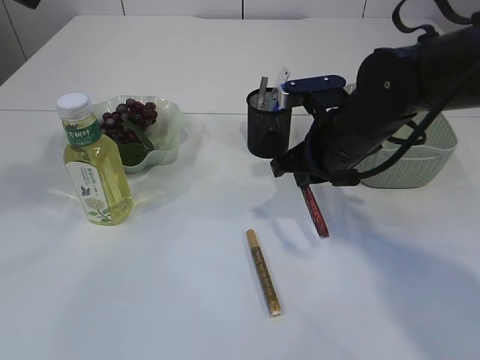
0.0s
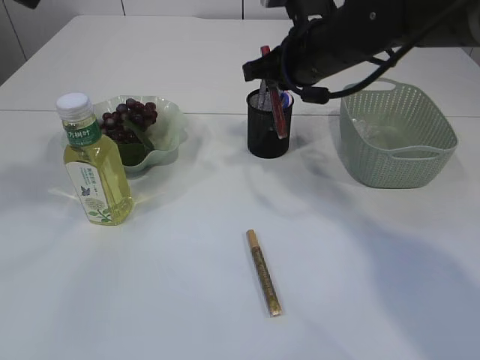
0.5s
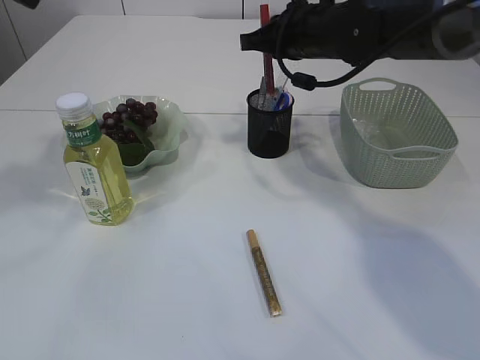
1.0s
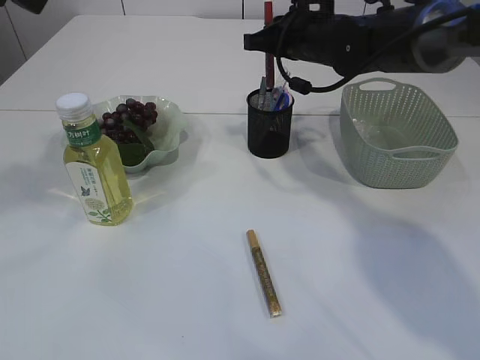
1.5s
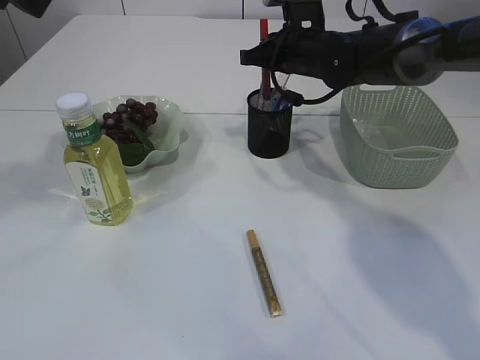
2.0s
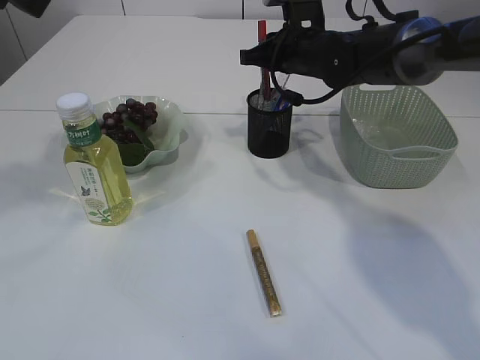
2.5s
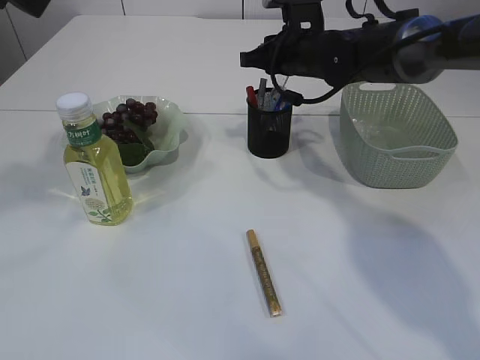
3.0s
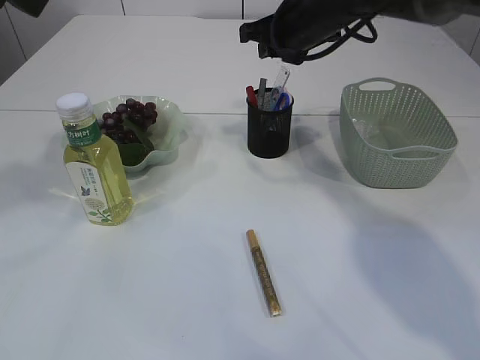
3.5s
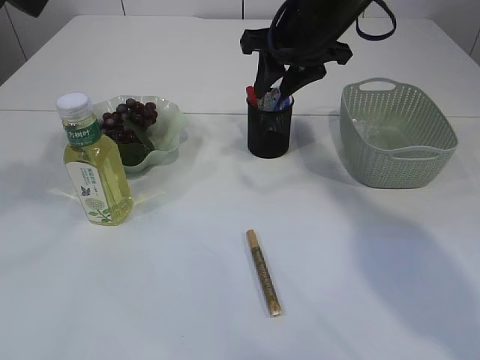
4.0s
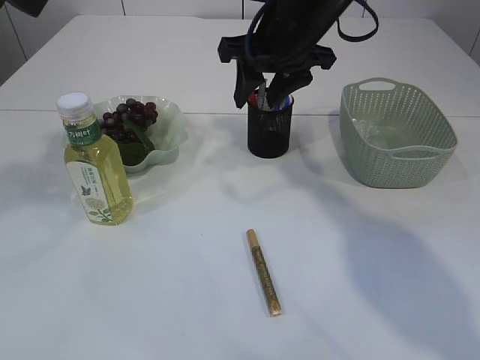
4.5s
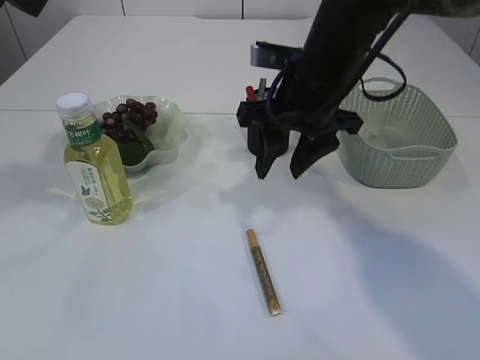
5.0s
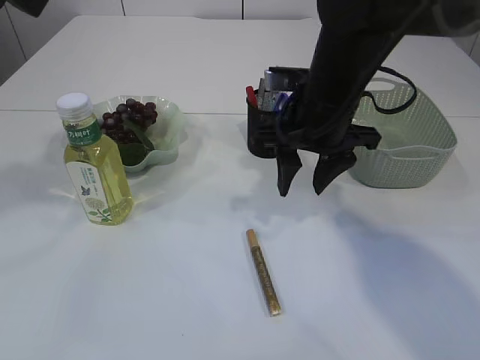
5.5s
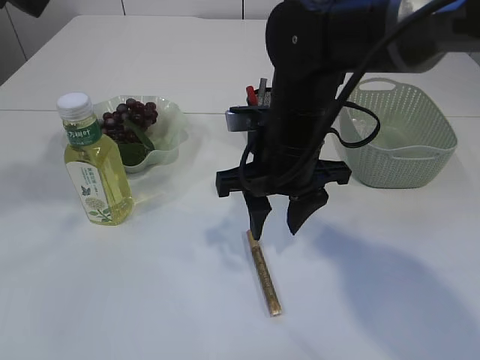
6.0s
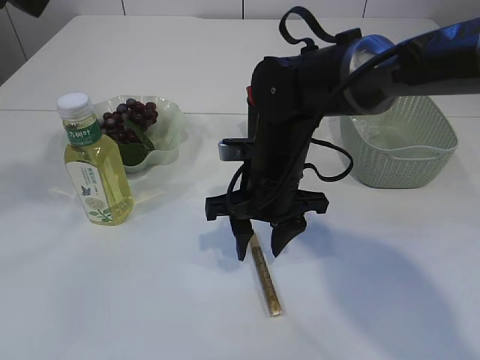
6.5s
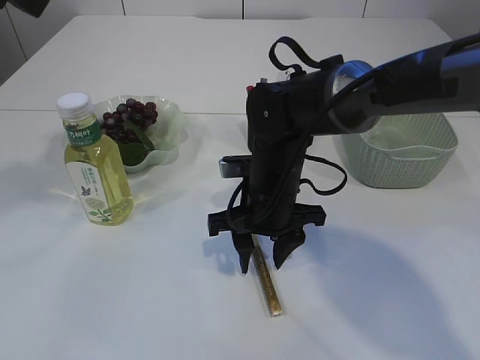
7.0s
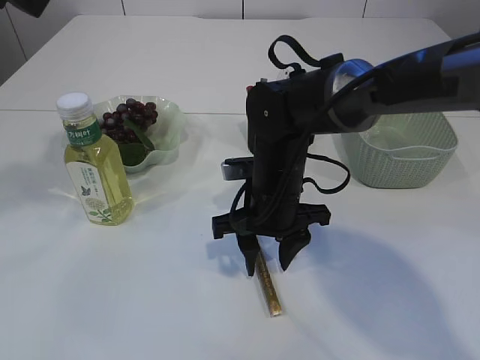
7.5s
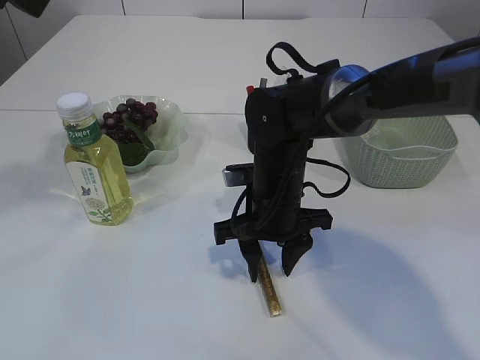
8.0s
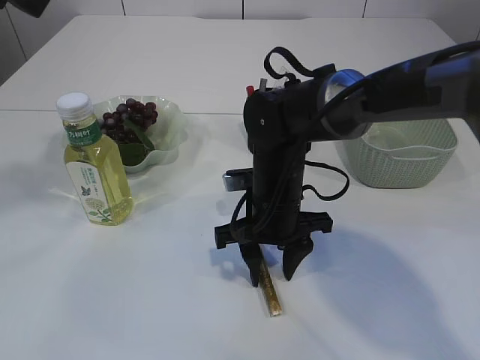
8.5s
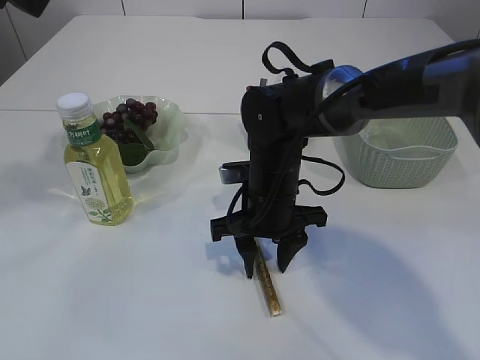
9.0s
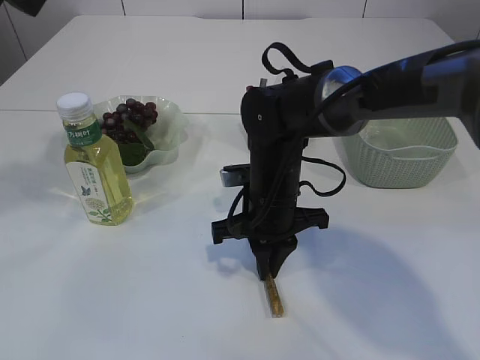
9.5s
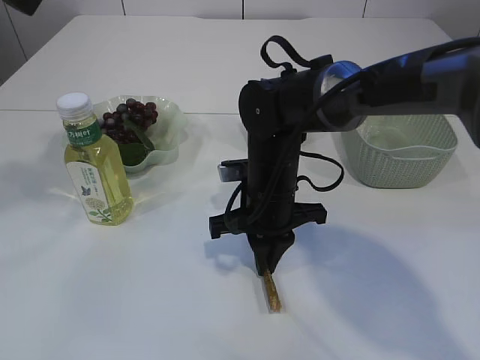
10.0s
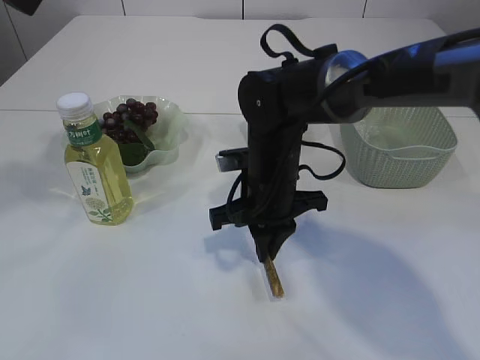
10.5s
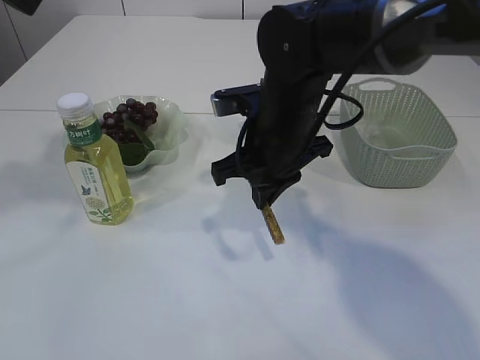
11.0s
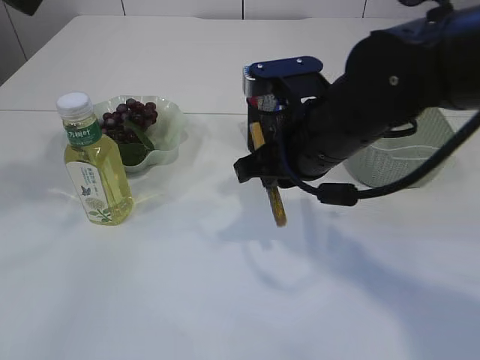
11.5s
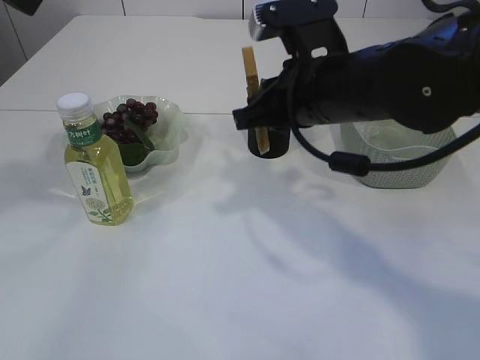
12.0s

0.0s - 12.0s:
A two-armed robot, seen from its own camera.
Step, 0.0s - 2.5s: place the red glue into the pen holder.
Step, 3.0s - 10.5s: pick up the yellow glue.
0.0s - 2.0s: The right gripper shifts some 15 cm forward.
2.0s - 4.0s: The right gripper shifts about 10 cm upward and backward, and opens up.
4.0s - 6.0s: The right gripper goes some 15 cm backward and downward.
6.0s - 8.0s: The right gripper heads downward, covering about 10 cm.
8.0s - 10.0s: The right gripper closes up.
10.0s - 12.0s: The right gripper is displaced upward by about 15 cm.

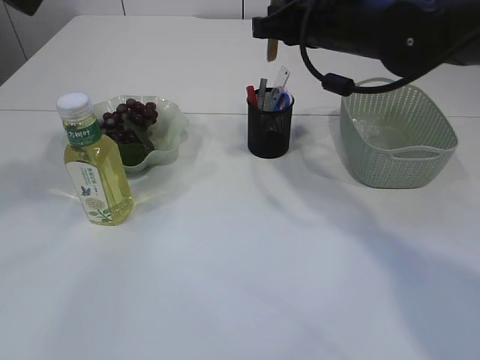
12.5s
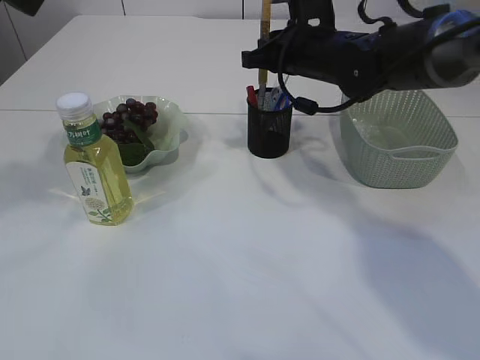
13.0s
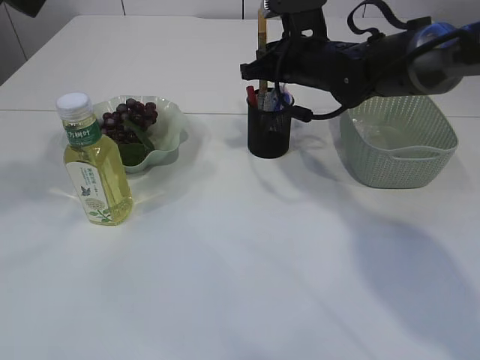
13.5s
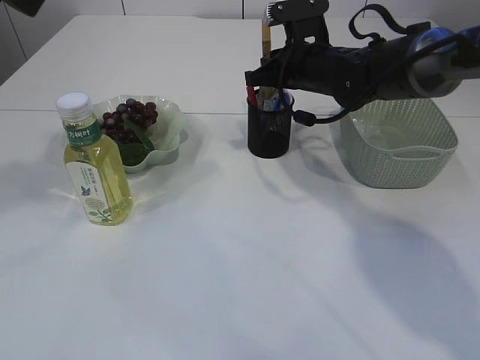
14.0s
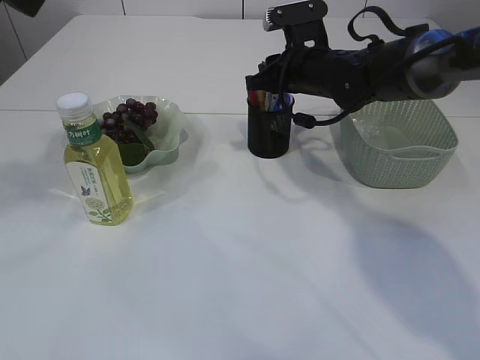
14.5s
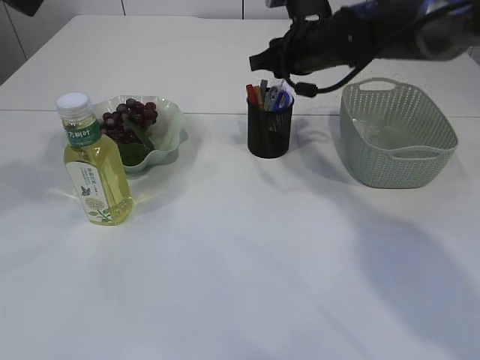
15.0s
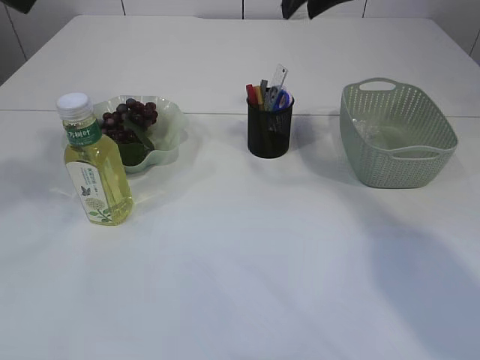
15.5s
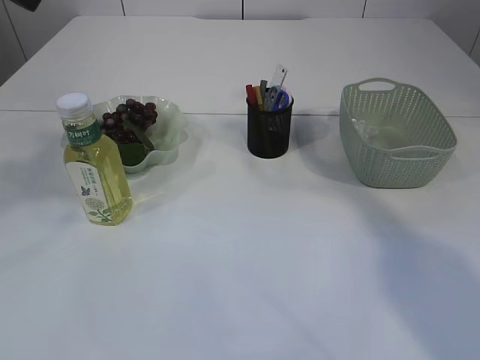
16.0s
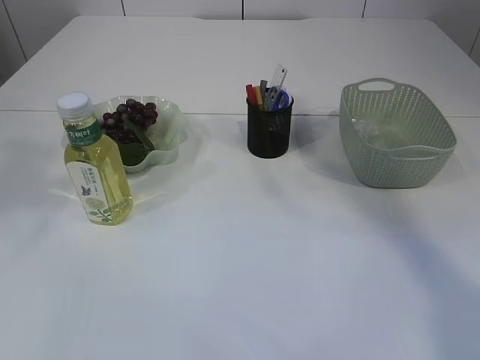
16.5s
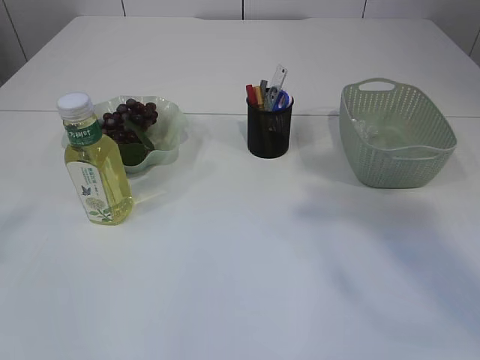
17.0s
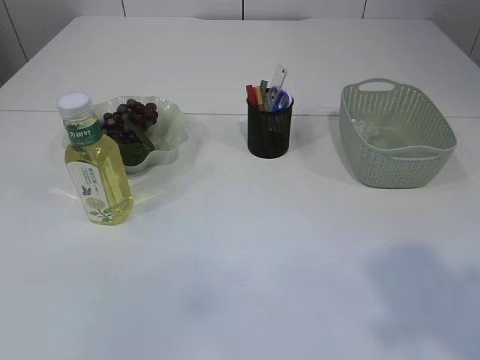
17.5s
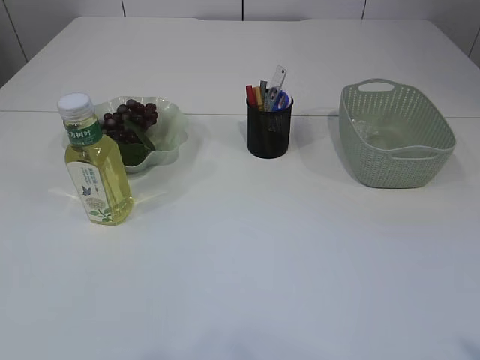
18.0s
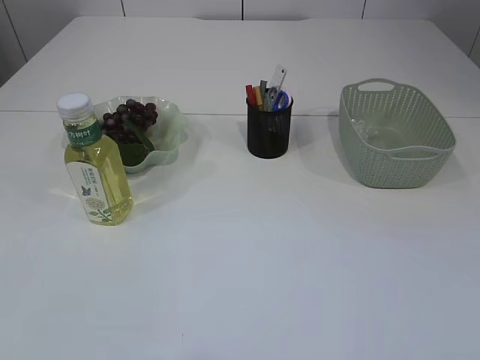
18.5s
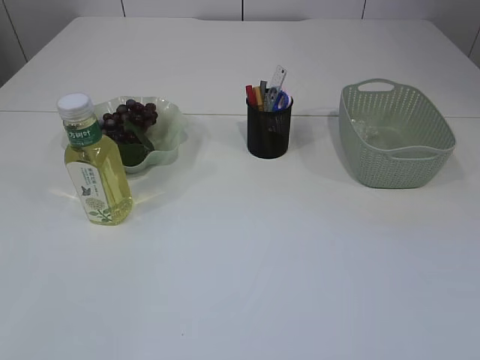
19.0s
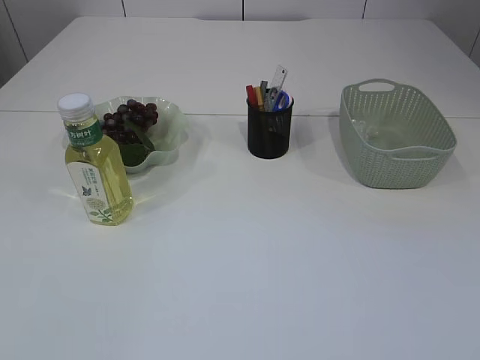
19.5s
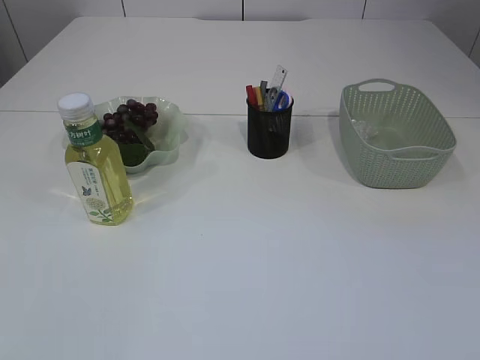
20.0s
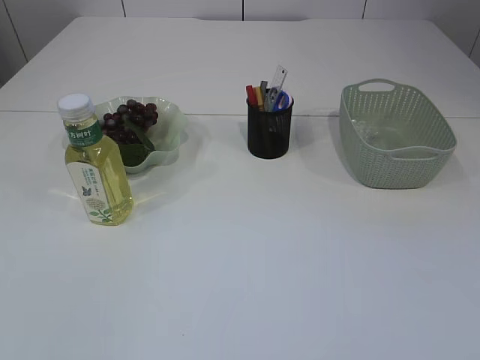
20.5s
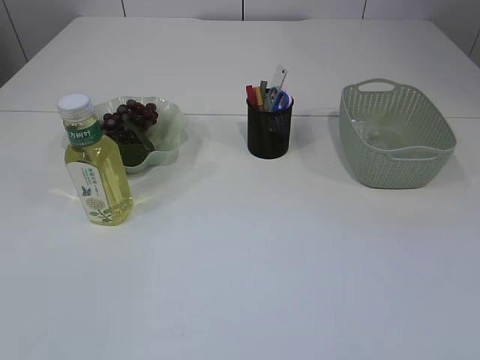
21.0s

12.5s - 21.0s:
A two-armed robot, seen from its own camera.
Step, 12.5s - 15.0s: place the yellow glue into the pen holder.
12.5s - 14.5s: The right gripper travels downward and forward by some 10 cm.
14.5s - 16.5s: The right gripper heads upward and backward, covering roughly 35 cm, and opens.
16.5s - 19.0s: The right gripper moves backward and downward, roughly 40 cm.

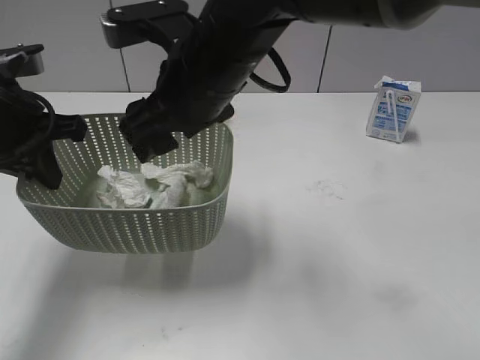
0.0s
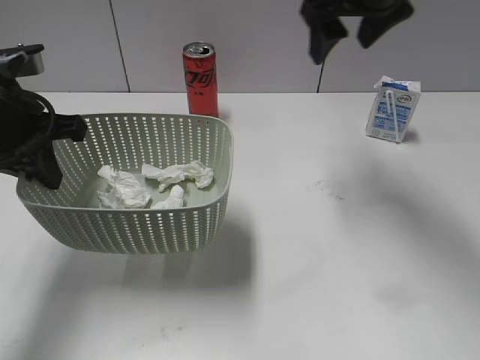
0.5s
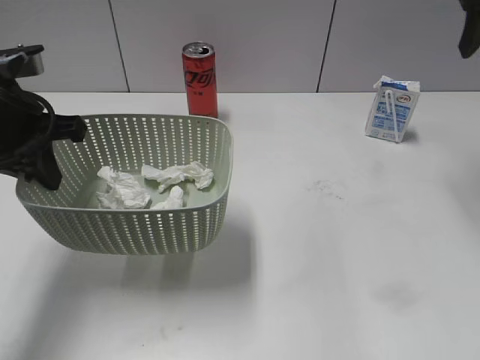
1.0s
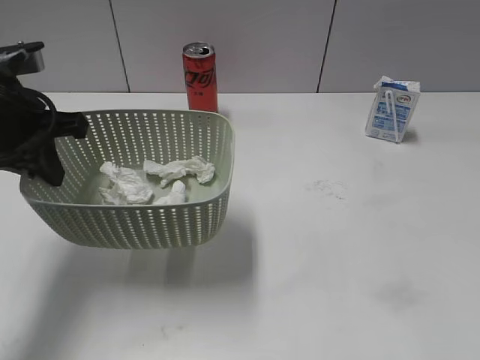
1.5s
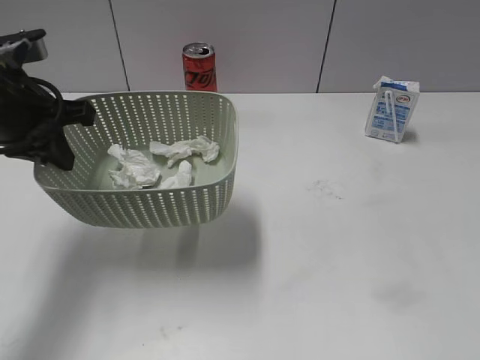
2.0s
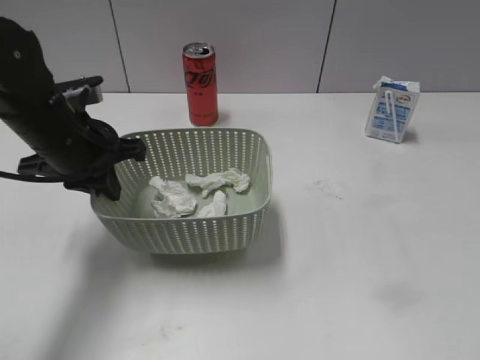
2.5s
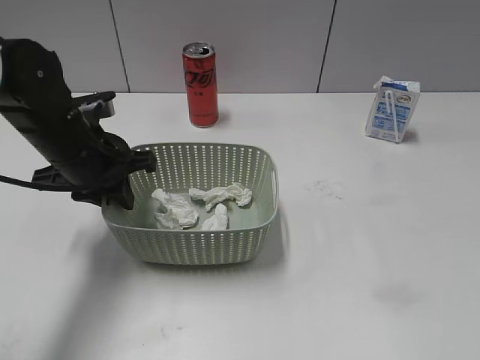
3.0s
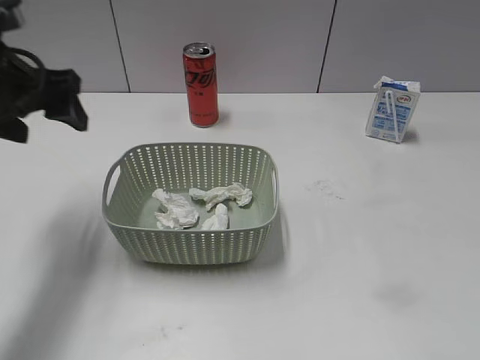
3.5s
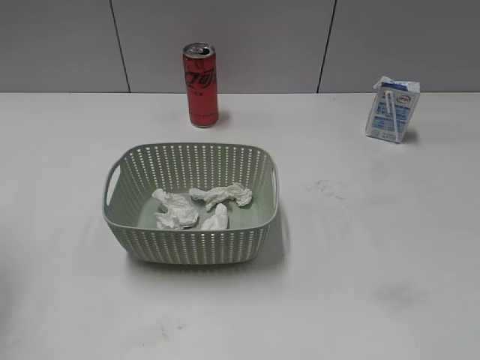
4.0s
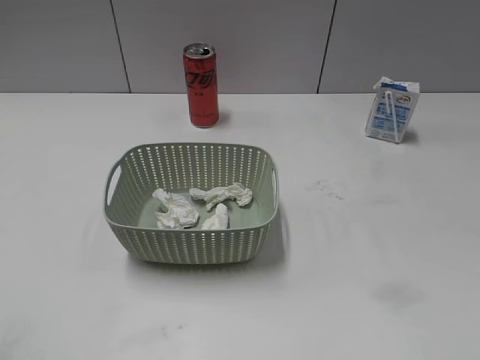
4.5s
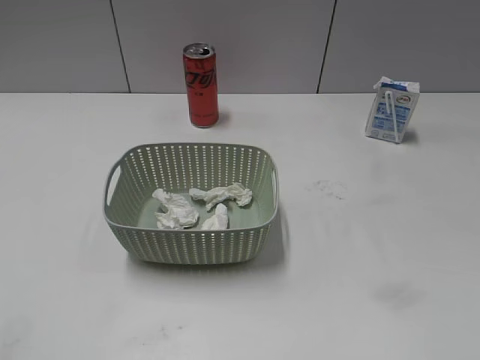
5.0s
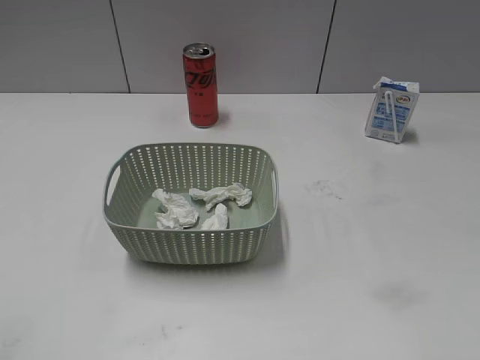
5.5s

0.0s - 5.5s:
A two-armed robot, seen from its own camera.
Step, 0.5s - 3.0s: Place the basket on the table with left gripper.
0.0s - 2.0s: The right gripper heads to the right and backward, covering about 40 cm.
2.0s - 3.5s: The left gripper goes downward and returns, approximately 5 cm each way, and opens up.
3.5s - 5.5s: The left gripper shifts some 30 cm backward.
